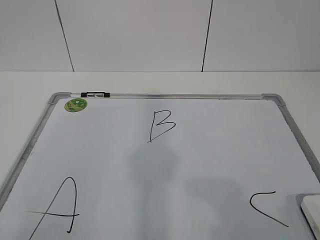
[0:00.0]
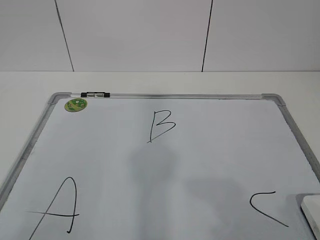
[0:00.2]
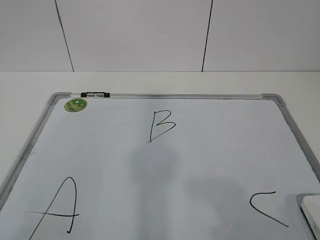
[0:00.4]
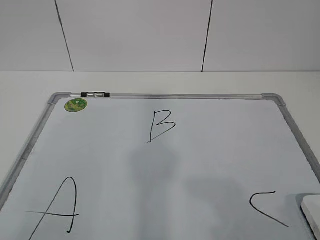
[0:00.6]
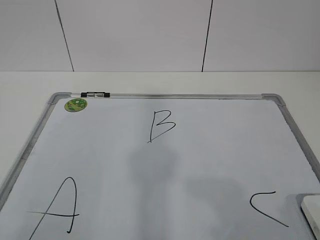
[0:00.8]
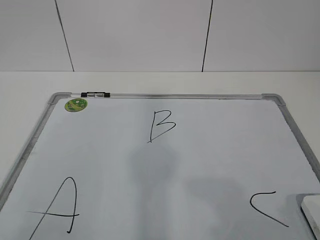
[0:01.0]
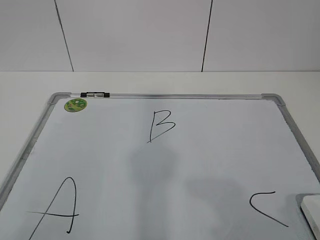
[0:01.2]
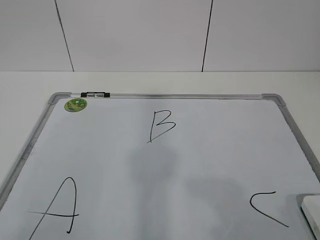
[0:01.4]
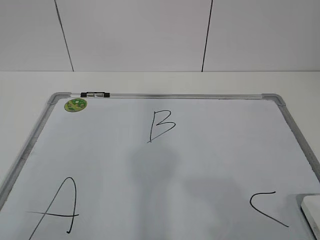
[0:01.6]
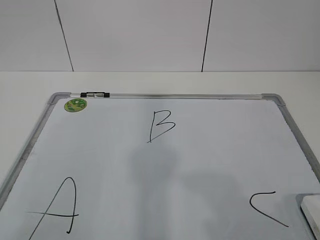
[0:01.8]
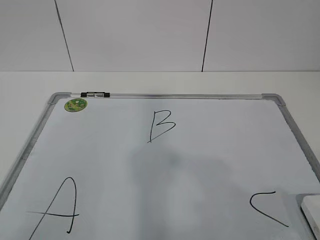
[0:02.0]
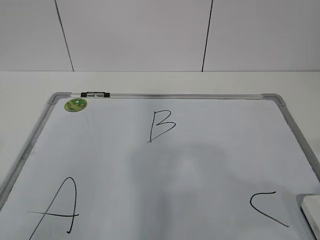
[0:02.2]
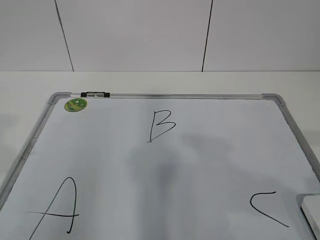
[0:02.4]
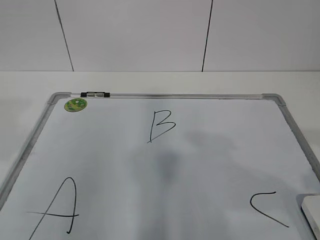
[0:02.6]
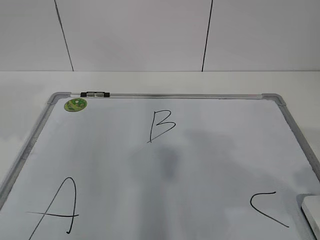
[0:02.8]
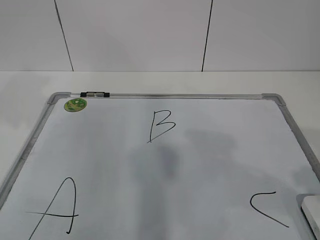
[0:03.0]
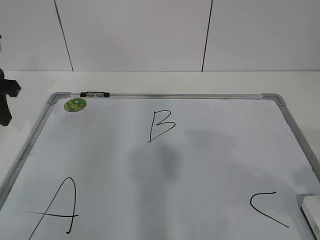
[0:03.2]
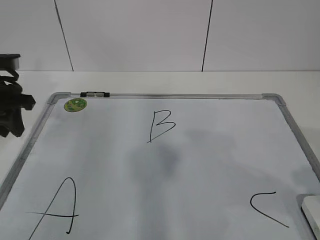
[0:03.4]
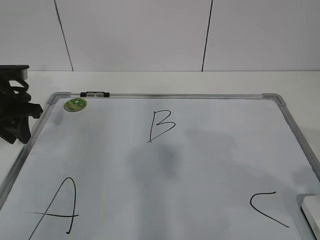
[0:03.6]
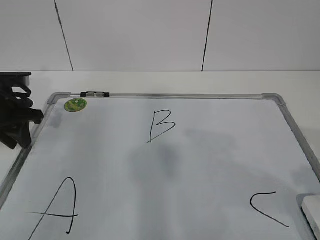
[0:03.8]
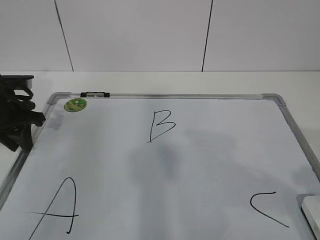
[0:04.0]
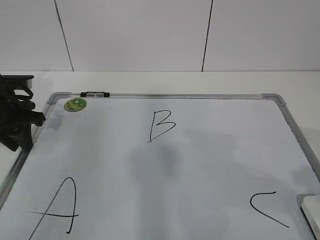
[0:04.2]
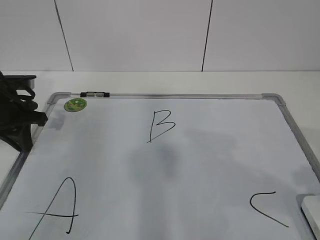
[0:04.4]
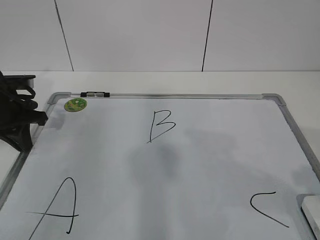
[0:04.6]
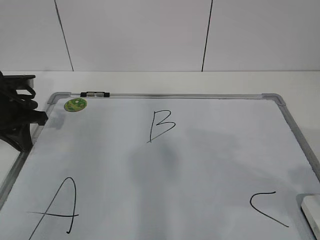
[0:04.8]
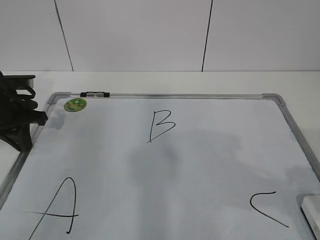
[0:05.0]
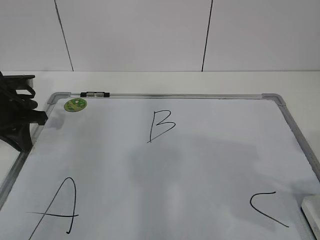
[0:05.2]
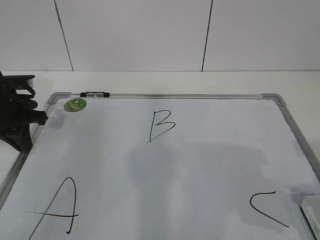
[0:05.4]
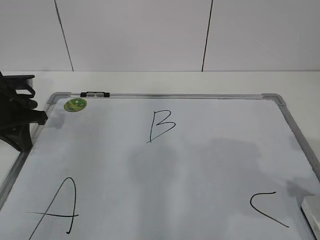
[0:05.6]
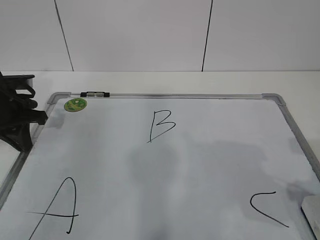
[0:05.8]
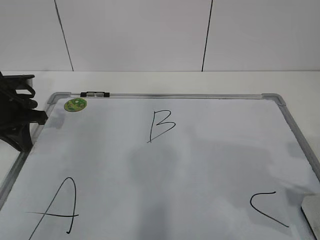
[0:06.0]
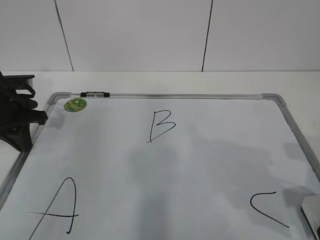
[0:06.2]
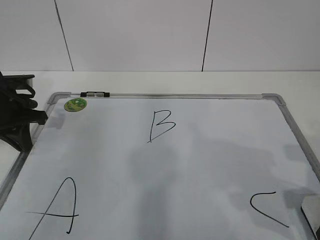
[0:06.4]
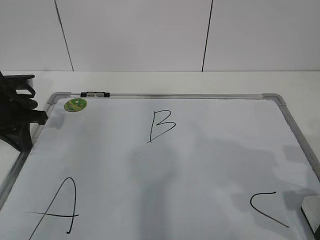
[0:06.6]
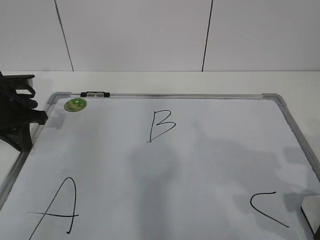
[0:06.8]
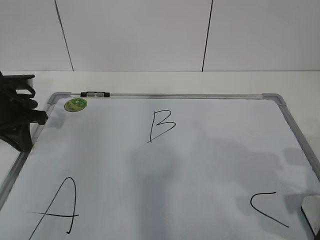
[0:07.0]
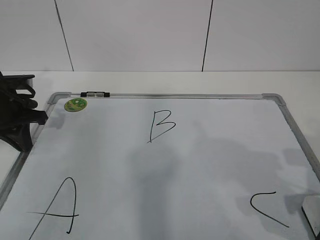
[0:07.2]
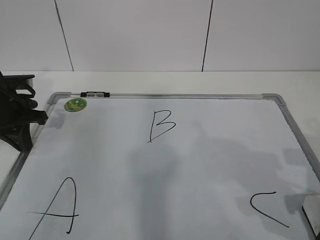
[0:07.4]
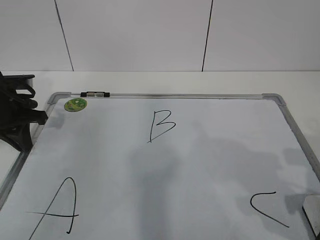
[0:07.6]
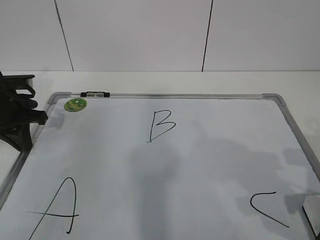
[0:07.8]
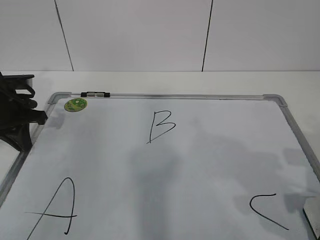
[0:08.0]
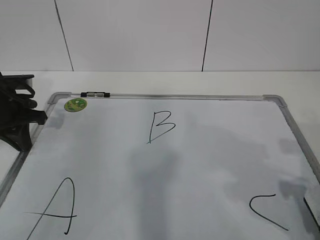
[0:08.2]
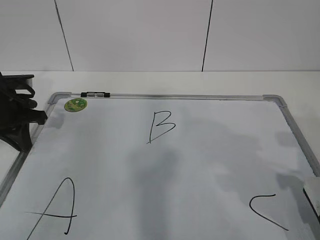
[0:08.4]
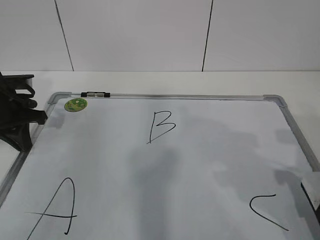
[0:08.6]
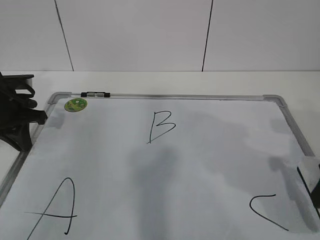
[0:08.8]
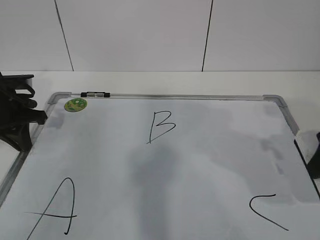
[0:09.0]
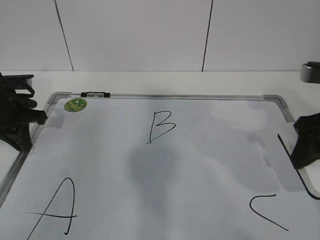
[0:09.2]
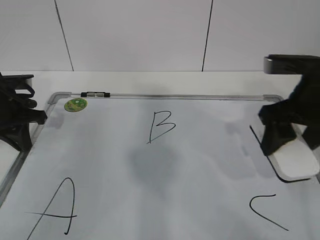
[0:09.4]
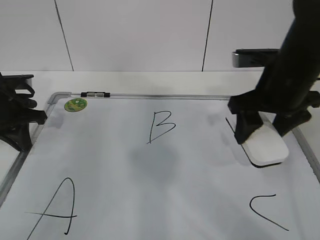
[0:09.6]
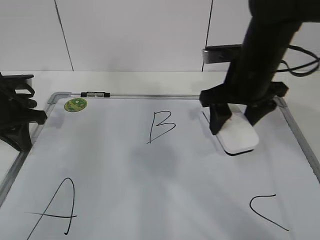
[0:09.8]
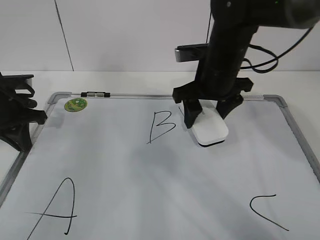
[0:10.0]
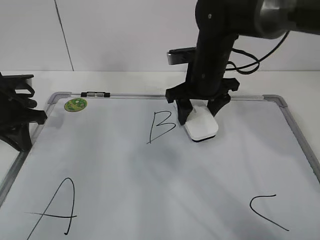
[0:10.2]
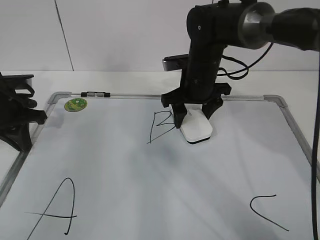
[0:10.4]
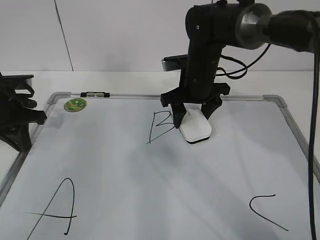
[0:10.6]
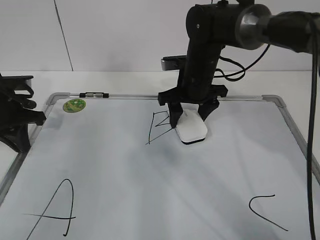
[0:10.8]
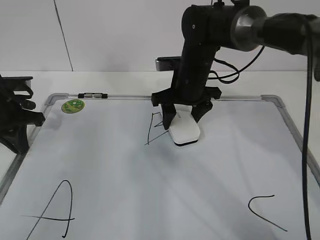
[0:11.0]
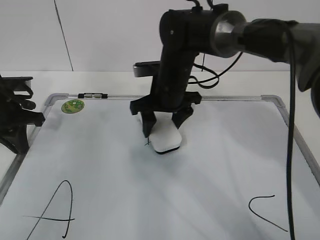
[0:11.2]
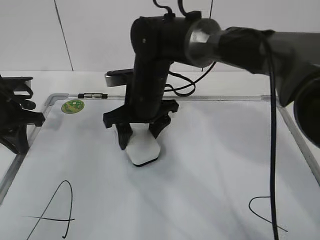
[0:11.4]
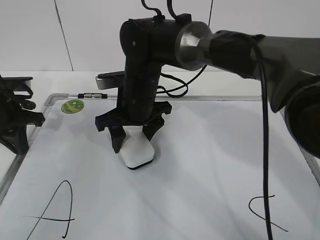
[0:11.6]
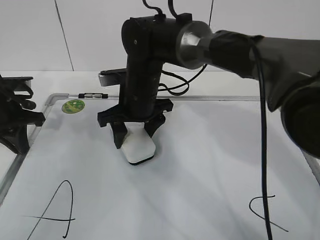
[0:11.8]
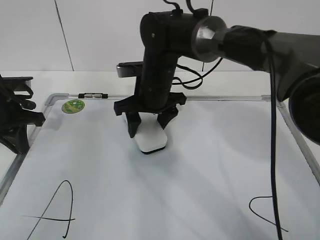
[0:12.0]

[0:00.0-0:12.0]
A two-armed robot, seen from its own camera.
Task of the whole recording: pick up the eraser on the blackboard and erase the letter "B".
Step, 0:00.0 to 0:03.6: Hold the drawing board steady with your left hand.
Step, 0:06.6 to 0:11.8: Erase the letter B with your right hand.
0:01.6 to 0:03.0: The right gripper travels forward by approximately 10 cm. The left gripper heads forward, covering some 30 cm.
0:03.0 to 0:04.4: The left gripper heads downward and forward, covering roughly 15 cm, and closes up.
0:04.4 to 0:06.0: The right gripper travels downward and forward by roughly 10 cm, and opens up.
0:07.6 to 0:09.0: The right gripper shifts some 5 cm upward.
0:09.0 to 0:10.4: The right gripper travels forward and to the left by about 30 cm.
0:10.4 to 0:12.0: The right gripper travels to the left by some 10 cm.

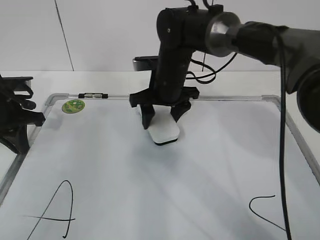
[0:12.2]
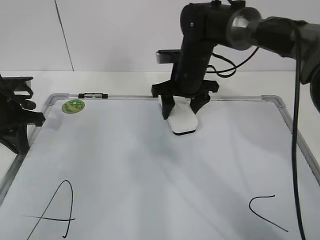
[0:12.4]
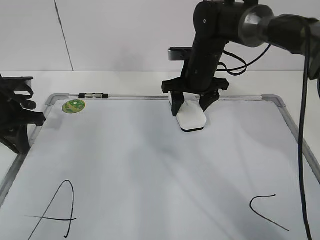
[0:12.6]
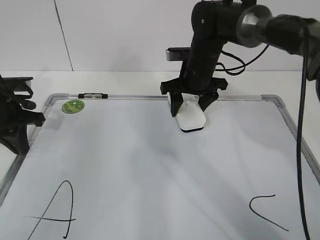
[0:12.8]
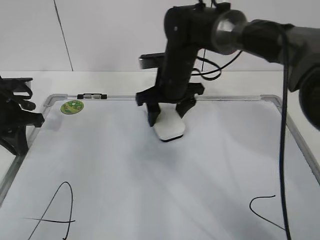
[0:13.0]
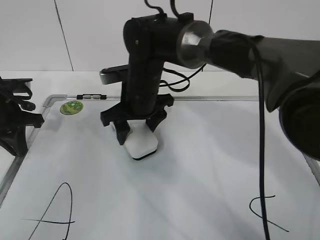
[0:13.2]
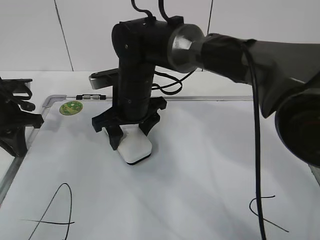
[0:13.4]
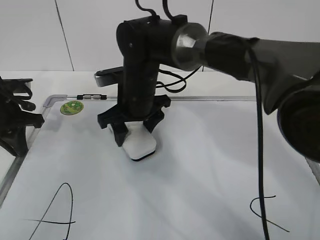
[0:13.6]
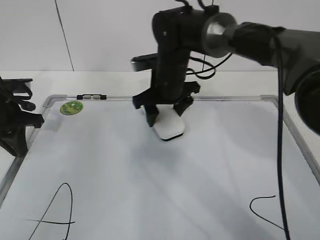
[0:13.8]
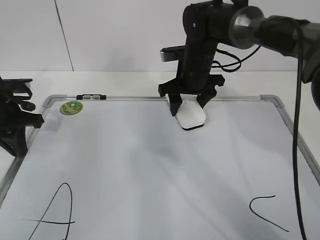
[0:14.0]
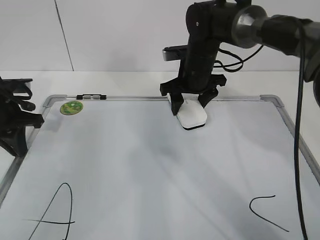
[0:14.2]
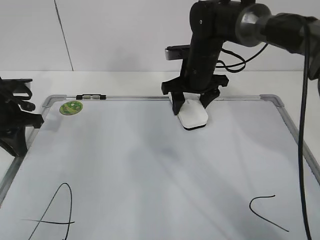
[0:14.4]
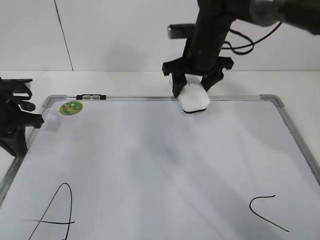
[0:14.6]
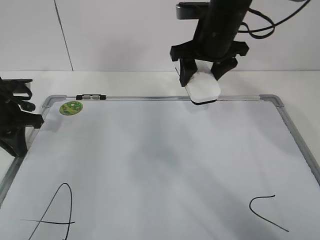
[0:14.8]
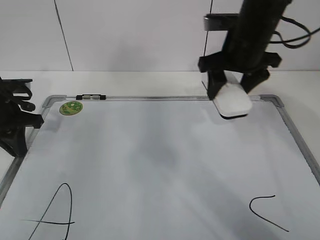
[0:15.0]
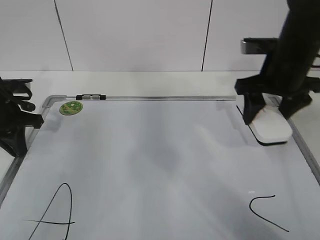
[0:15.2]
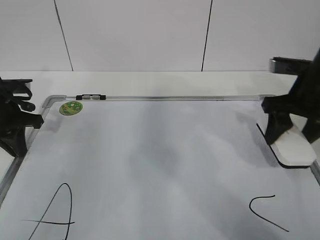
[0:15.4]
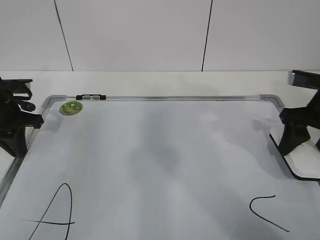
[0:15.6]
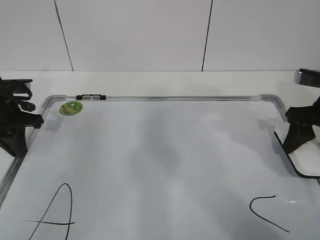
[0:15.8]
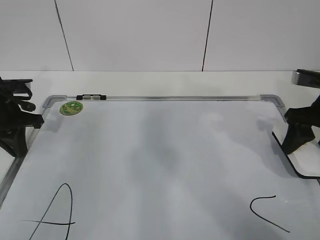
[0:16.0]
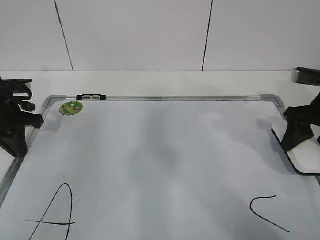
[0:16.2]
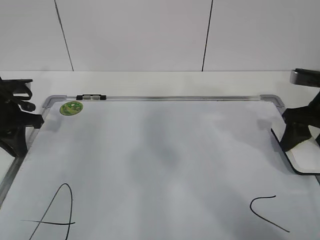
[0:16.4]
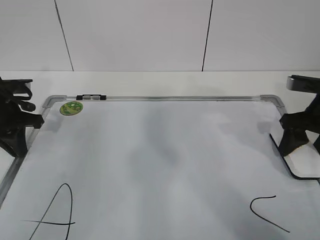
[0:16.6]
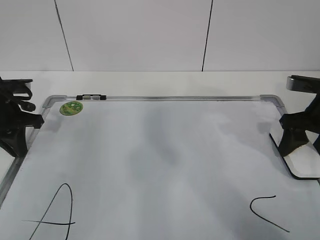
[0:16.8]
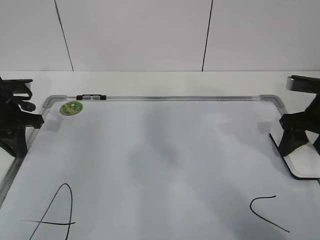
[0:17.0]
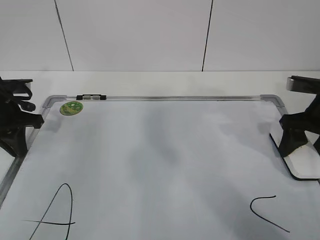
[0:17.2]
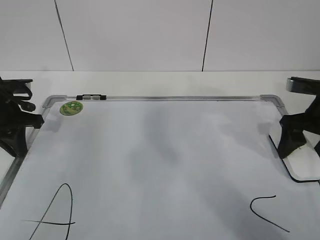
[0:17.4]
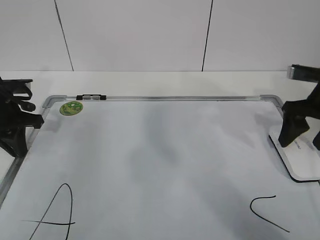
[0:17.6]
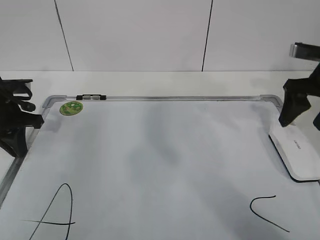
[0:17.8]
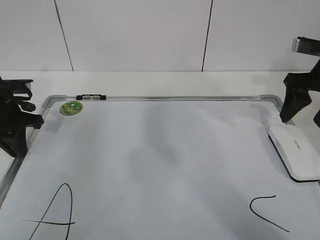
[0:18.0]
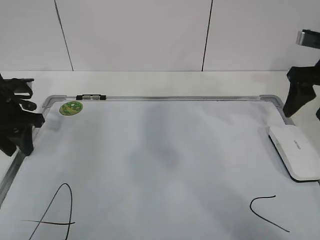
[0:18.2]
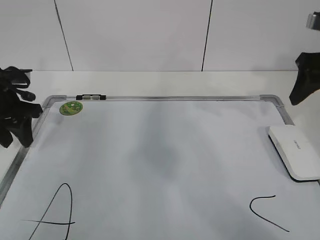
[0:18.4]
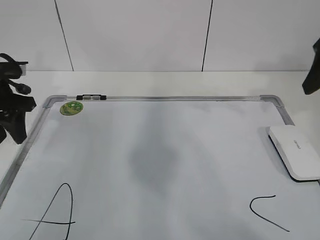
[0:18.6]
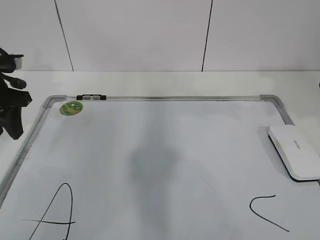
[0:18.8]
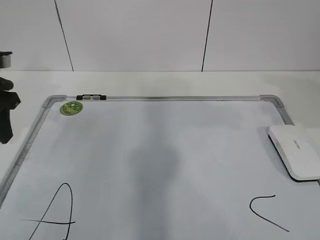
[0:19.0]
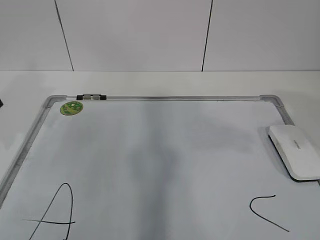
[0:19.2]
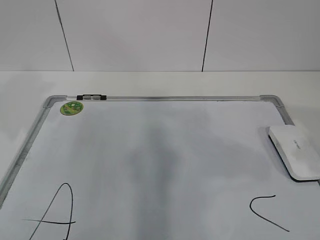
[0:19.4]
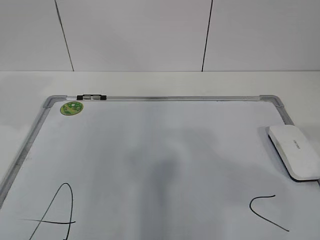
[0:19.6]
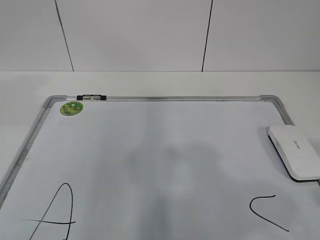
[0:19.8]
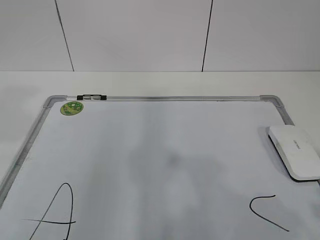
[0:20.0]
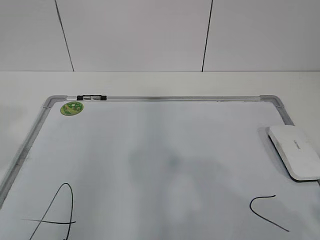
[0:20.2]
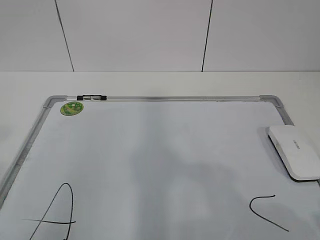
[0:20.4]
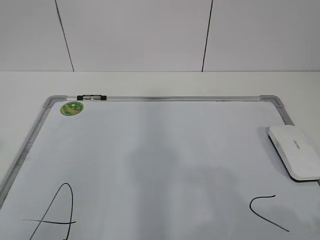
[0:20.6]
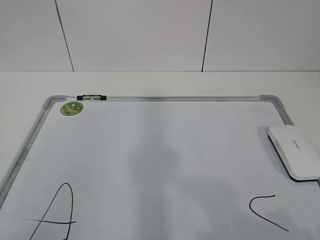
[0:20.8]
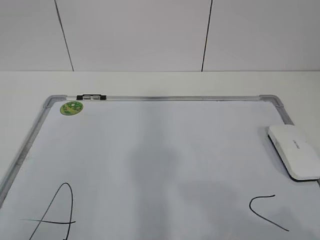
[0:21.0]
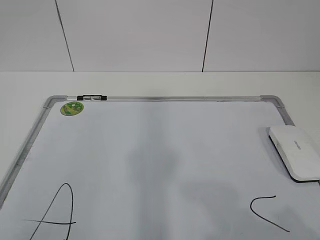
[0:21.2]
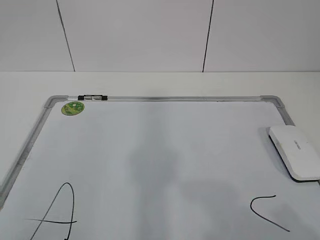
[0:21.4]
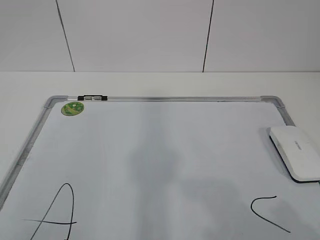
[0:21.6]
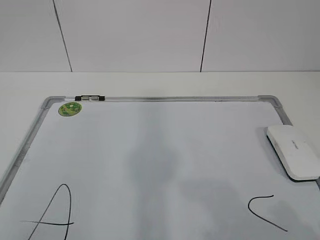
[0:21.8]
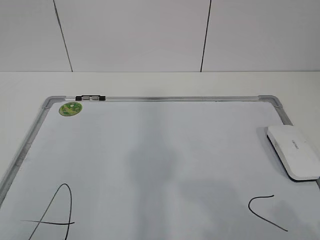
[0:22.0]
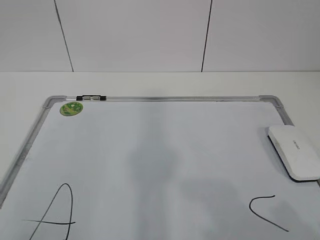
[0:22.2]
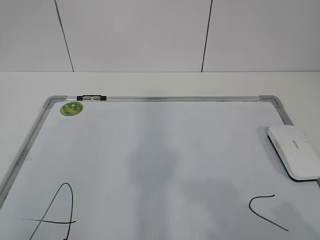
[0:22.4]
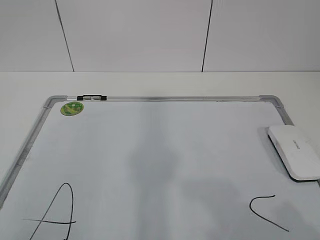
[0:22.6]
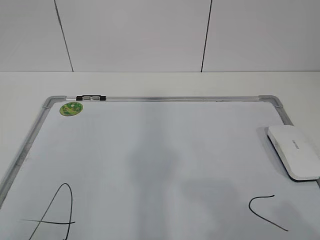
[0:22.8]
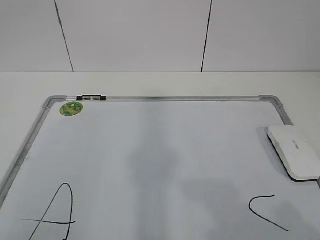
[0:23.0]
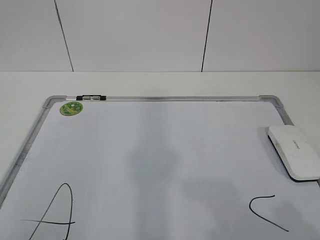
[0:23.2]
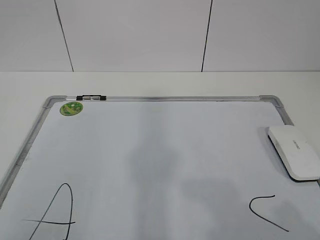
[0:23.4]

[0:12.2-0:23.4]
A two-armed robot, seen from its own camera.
Task of the whole recording: pick up the eraser on the blackboard and erase the letter "B".
Step, 0:12.2 to 0:14.2: Put down the eraser with your right hand.
0:12.2 to 0:13.8: The right gripper swings left and right, approximately 15 cm each way, with 2 reversals.
0:13.8 to 0:15.4: The right gripper travels to the right and backward by some 25 cm.
0:15.4 to 0:17.0: The right gripper ends up roughly 5 cm from where it was.
0:17.0 to 0:18.6: The right gripper is displaced upward by roughly 15 cm, and opens. Meanwhile the left gripper opens.
0:18.6 to 0:20.2: The right gripper heads backward, covering about 30 cm, while the left gripper heads backward and upward, covering about 30 cm.
0:20.2 to 0:21.8: The left gripper heads backward and downward, covering some 15 cm.
0:21.8 to 0:23.4: The grippers make only small movements.
